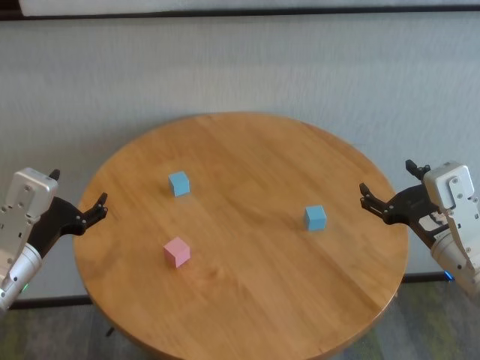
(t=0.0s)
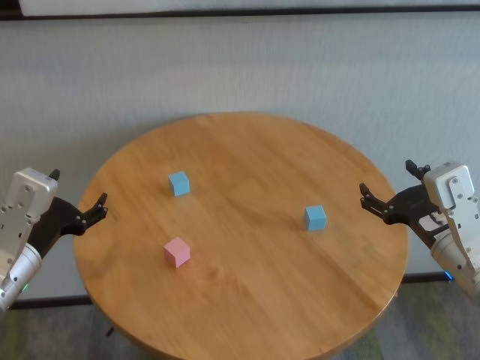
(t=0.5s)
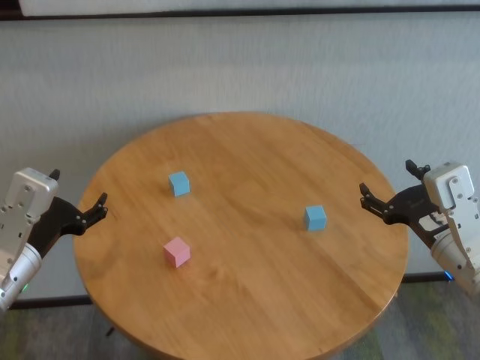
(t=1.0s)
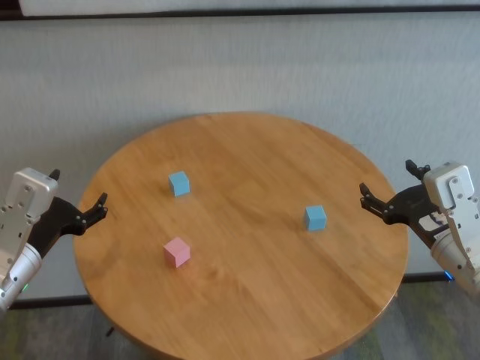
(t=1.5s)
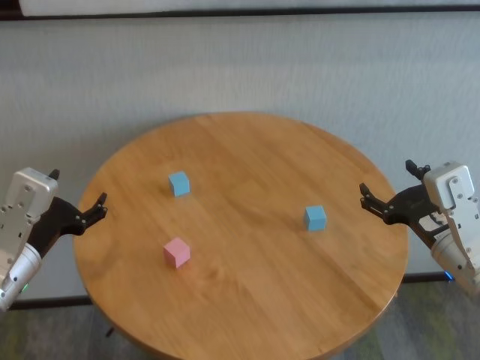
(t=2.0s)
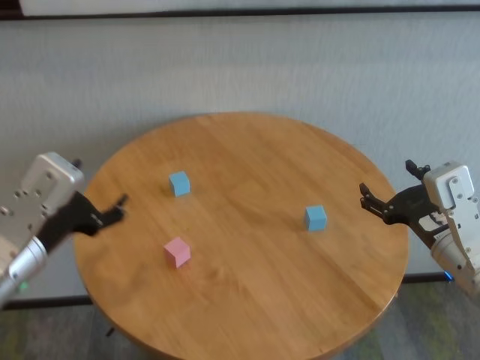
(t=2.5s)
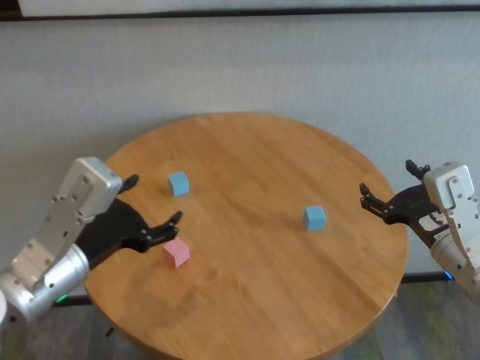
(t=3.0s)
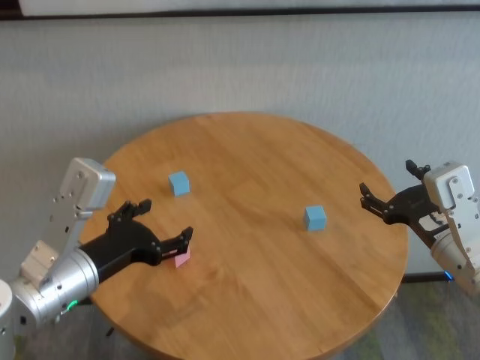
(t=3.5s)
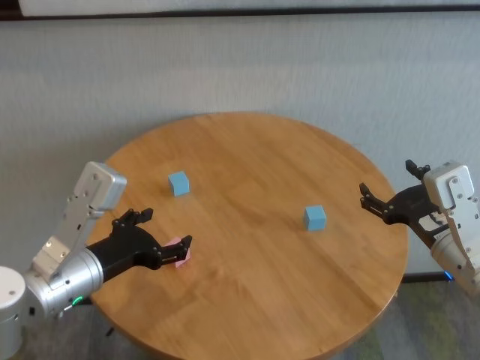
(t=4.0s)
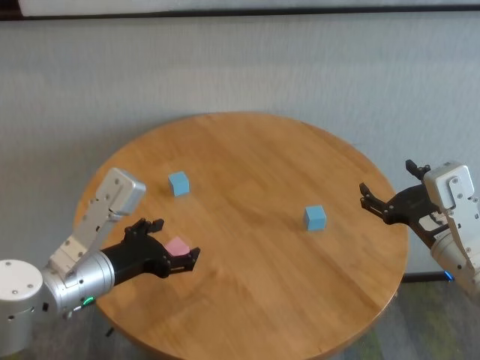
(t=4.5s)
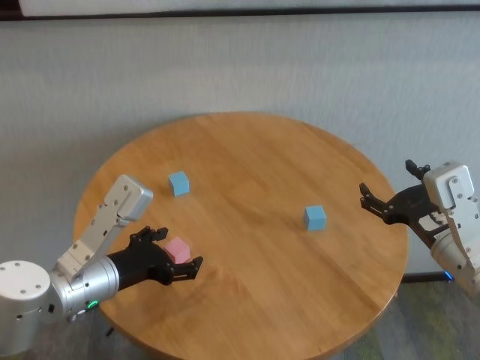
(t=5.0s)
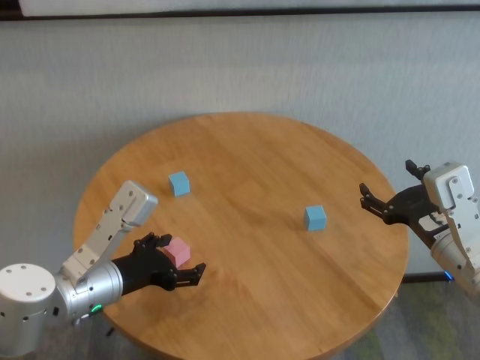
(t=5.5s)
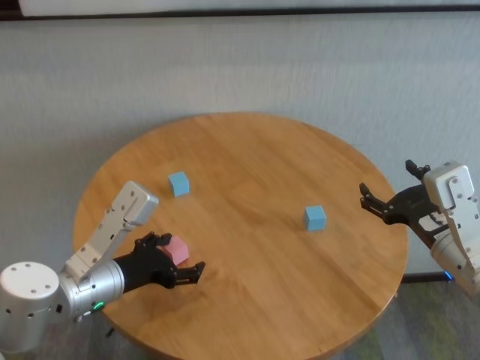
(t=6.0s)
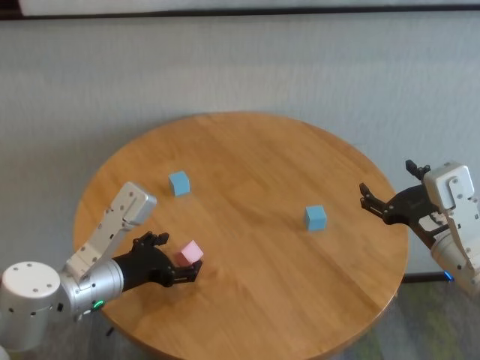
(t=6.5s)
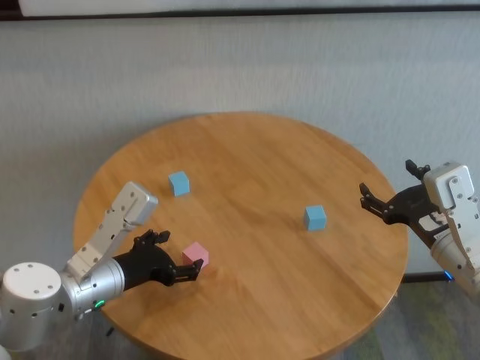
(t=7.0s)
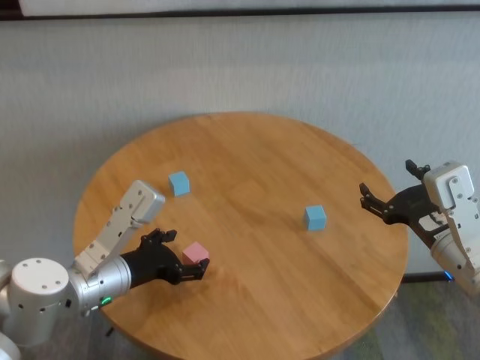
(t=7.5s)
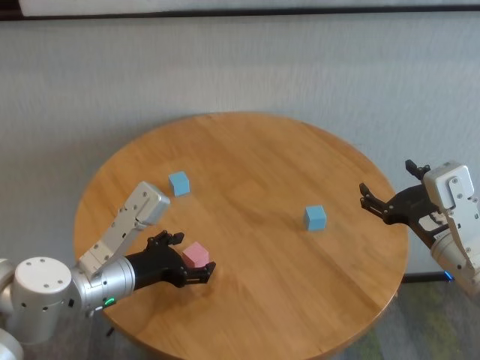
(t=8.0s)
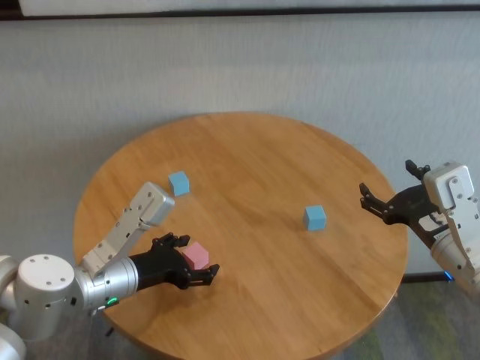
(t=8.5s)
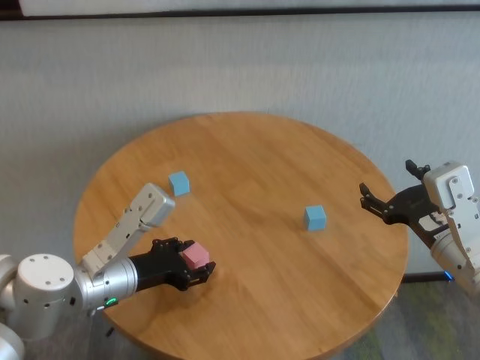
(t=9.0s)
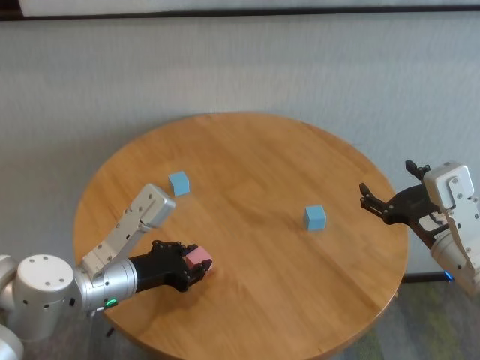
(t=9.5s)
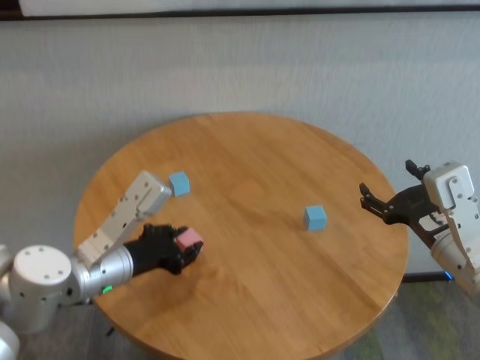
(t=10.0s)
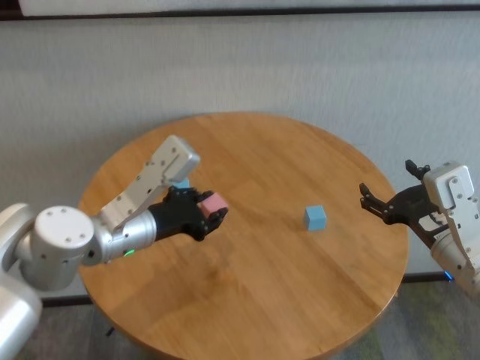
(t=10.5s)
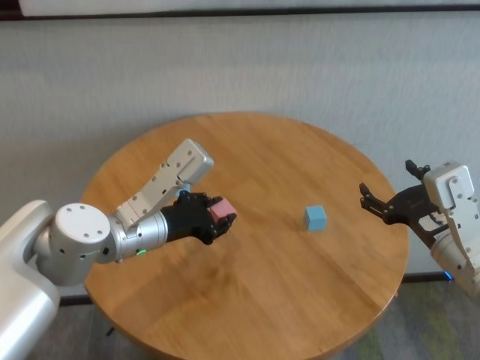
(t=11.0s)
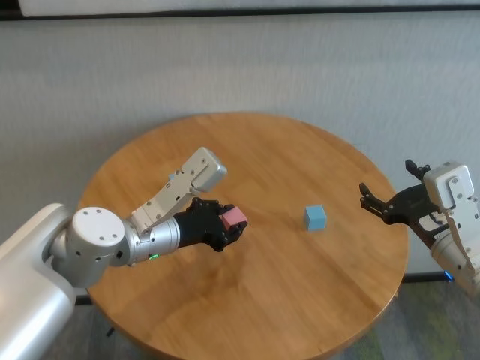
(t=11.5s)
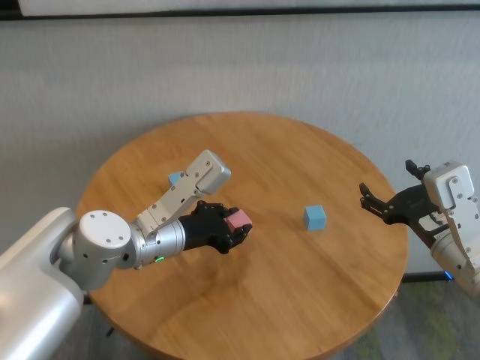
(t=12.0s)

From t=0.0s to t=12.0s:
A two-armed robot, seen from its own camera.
Task of the whole recording: stack building blocks on the table.
Step, from t=0.0s to t=9.5s: Grasp the pink building block with left gripper.

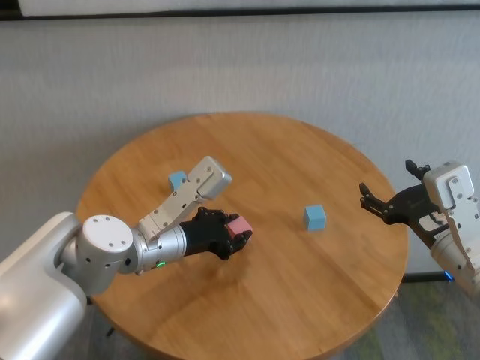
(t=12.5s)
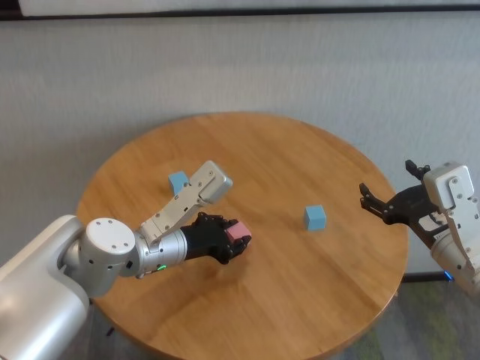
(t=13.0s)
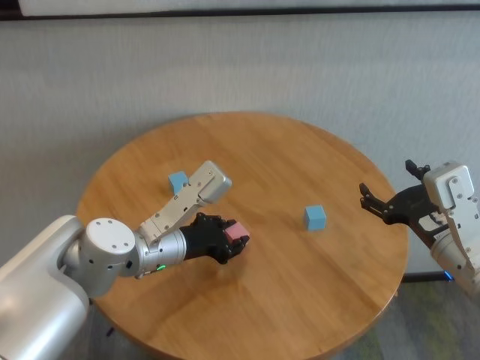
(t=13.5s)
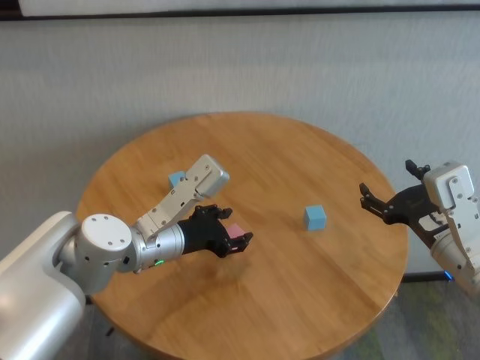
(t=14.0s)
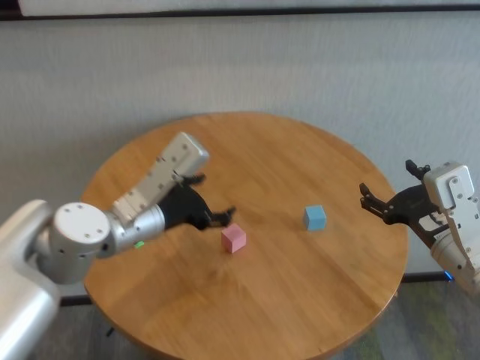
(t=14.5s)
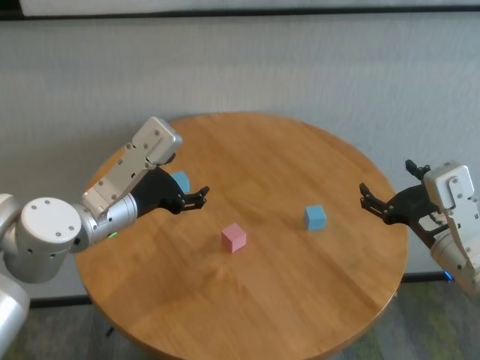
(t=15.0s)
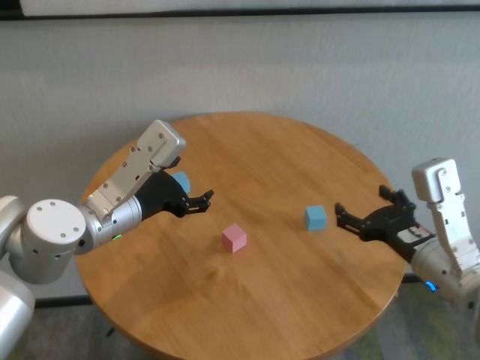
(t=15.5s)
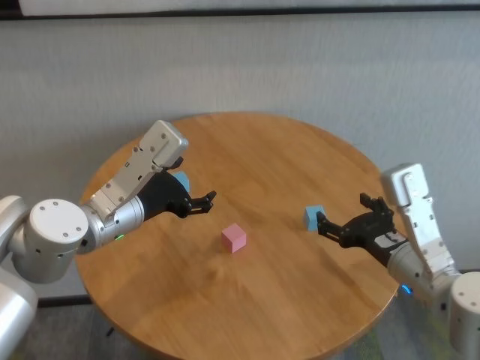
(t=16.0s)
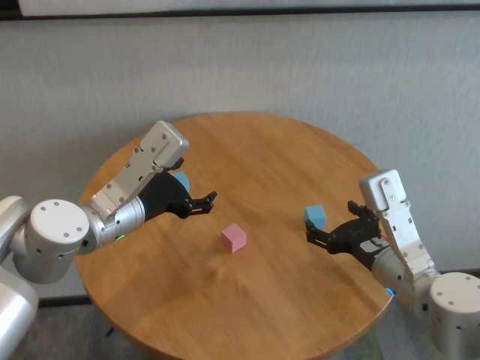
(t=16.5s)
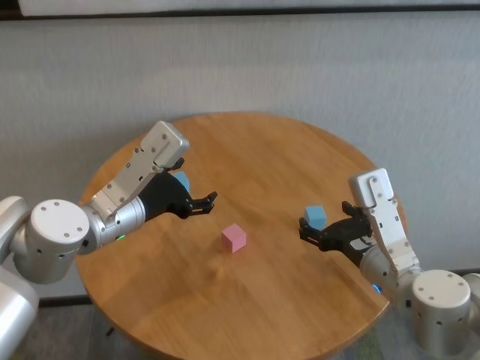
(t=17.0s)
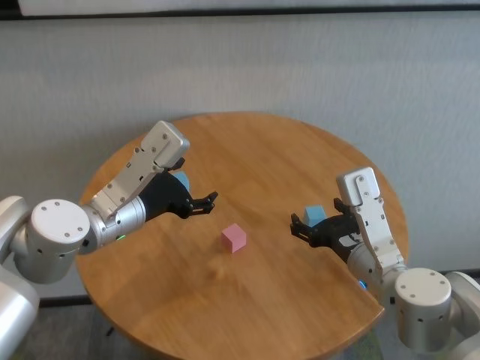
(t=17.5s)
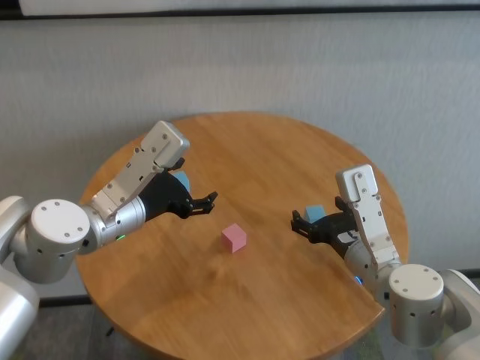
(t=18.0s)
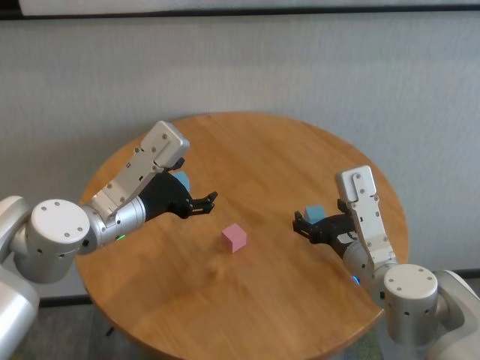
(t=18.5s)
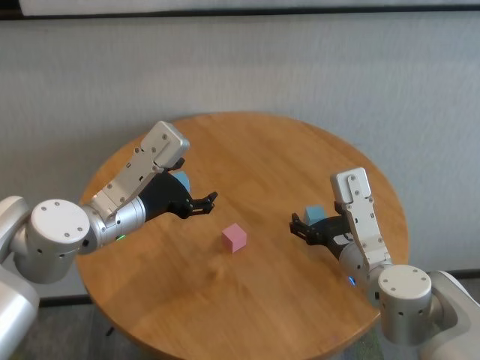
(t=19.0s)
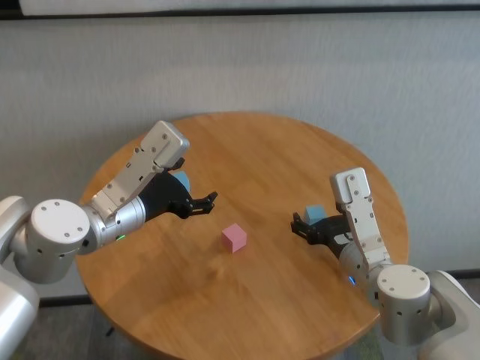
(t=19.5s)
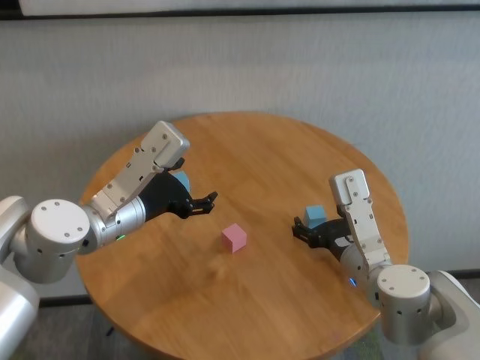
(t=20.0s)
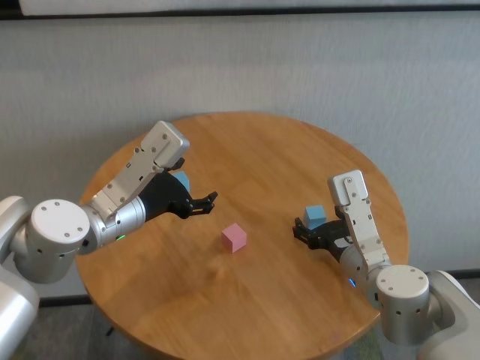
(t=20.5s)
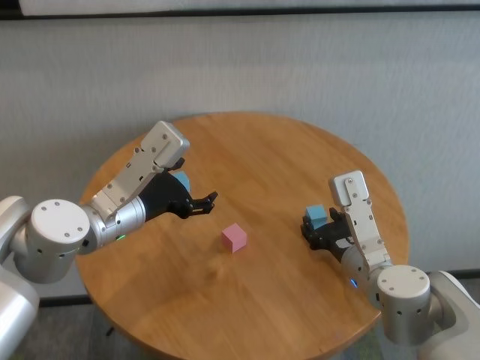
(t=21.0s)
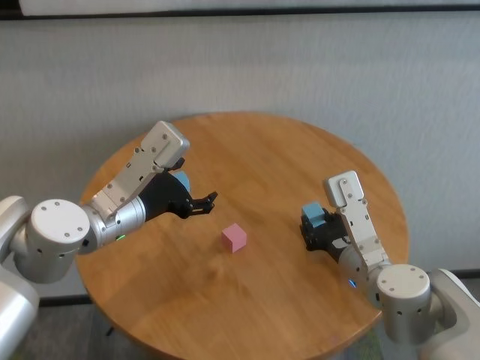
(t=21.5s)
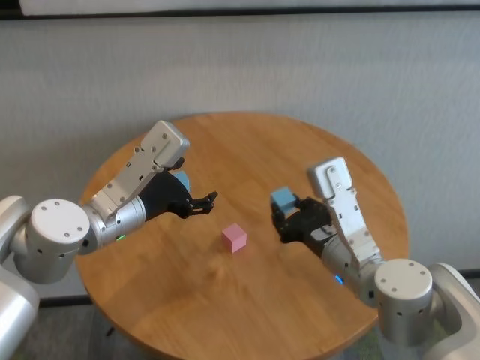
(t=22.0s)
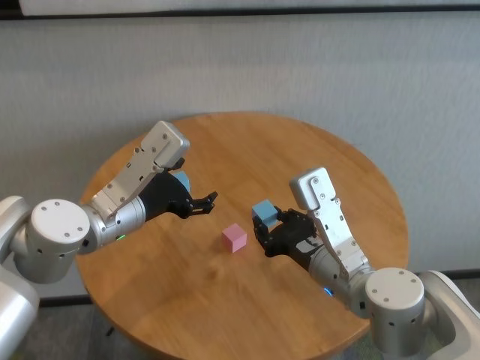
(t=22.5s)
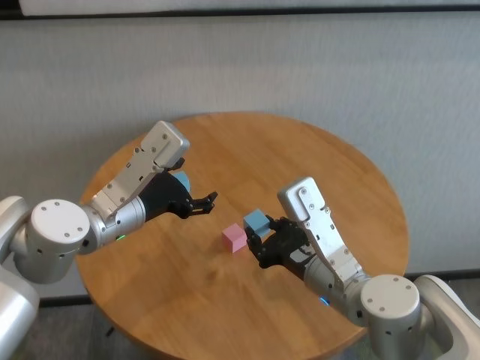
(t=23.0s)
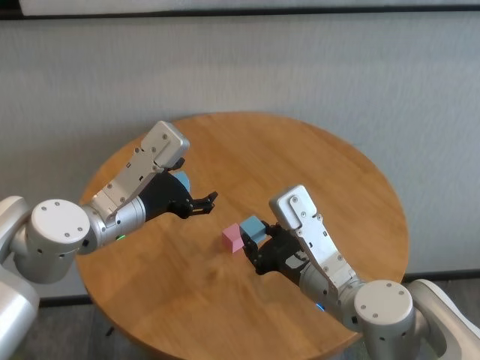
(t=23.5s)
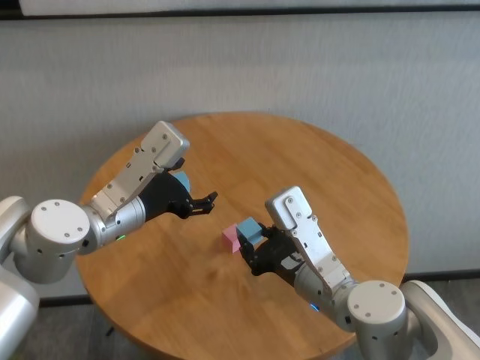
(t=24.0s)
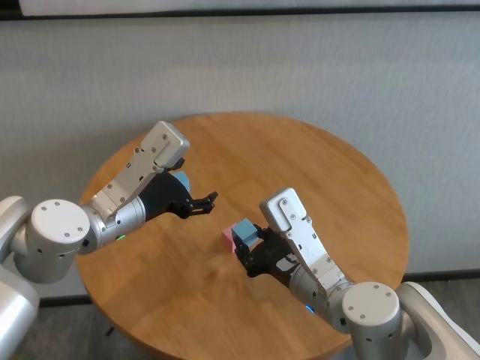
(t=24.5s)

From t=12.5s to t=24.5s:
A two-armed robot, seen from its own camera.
Task of the whole recording: stack building blocks on the table.
Step, from t=14.5s to t=21.0s: Grasp the blue building block with right gripper.

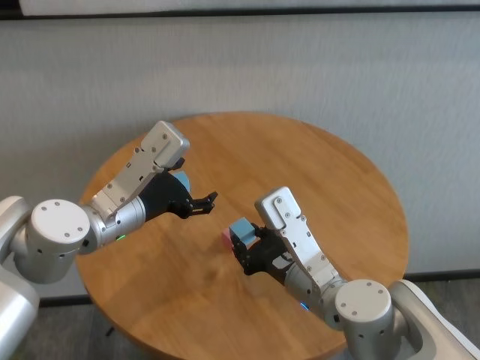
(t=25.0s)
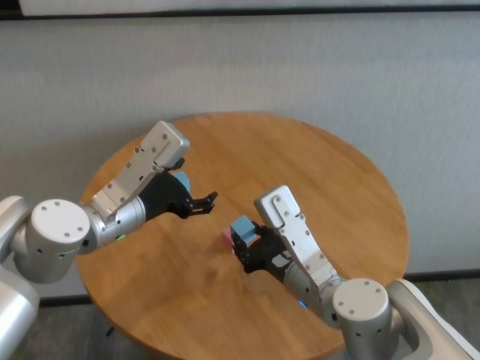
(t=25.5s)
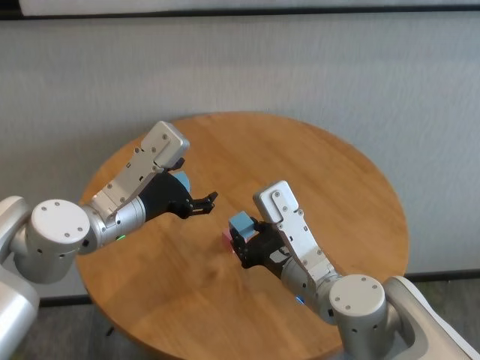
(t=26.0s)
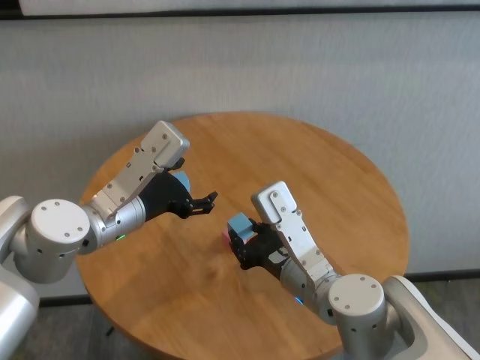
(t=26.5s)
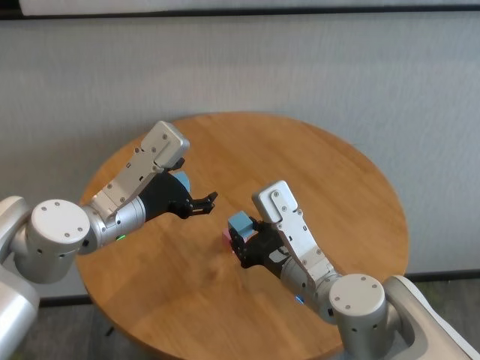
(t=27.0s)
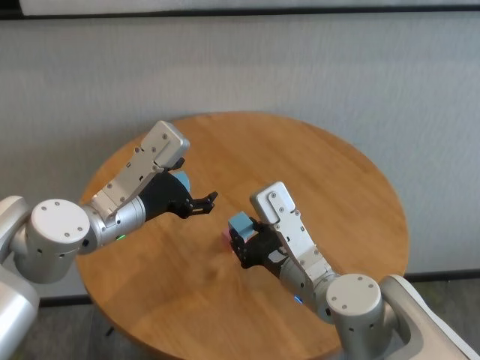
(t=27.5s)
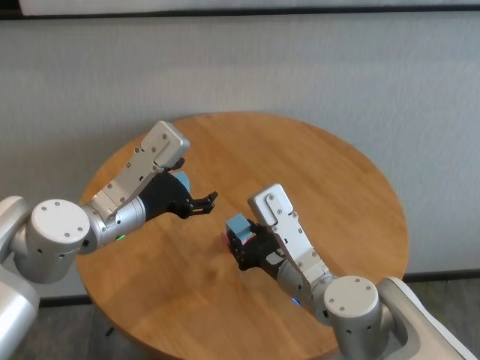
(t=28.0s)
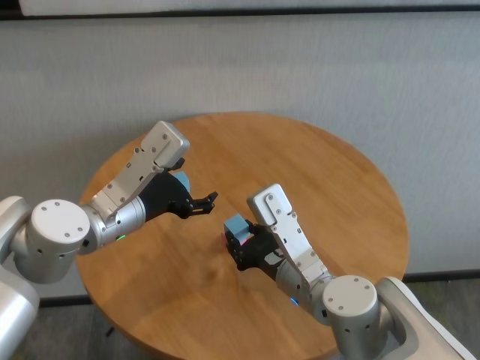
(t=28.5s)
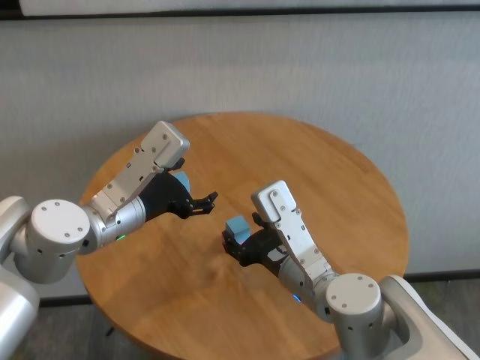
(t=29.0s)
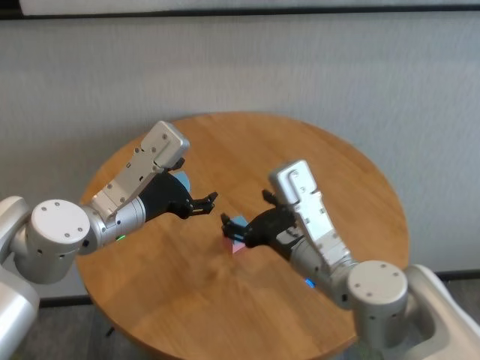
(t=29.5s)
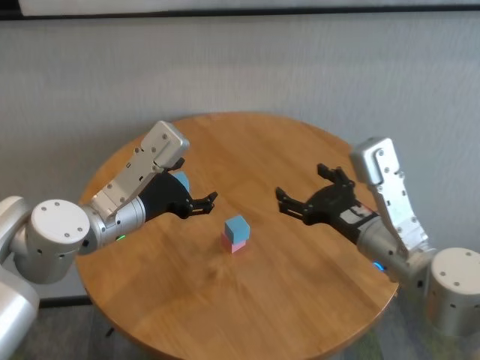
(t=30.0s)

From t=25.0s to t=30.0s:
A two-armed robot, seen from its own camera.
Task of the whole recording: stack building blocks on the table.
Step, from t=25.0s to t=29.0s: Place the blue building block on the pink building blocks with right gripper.
